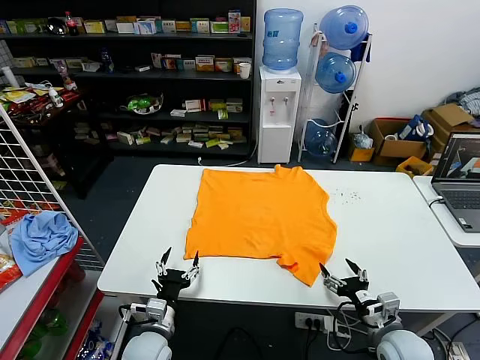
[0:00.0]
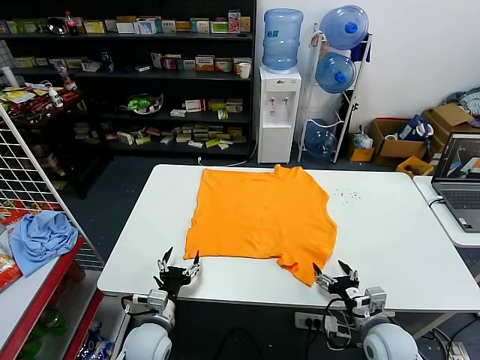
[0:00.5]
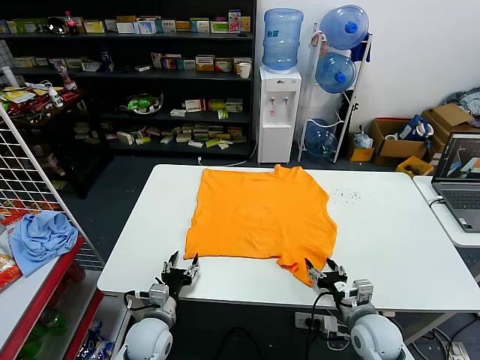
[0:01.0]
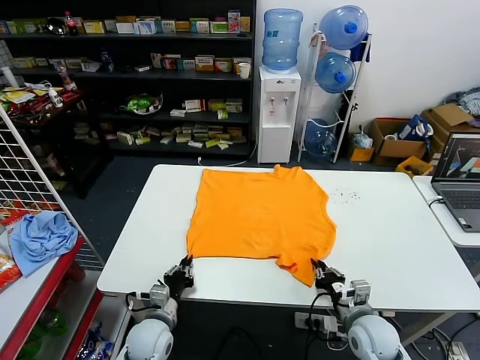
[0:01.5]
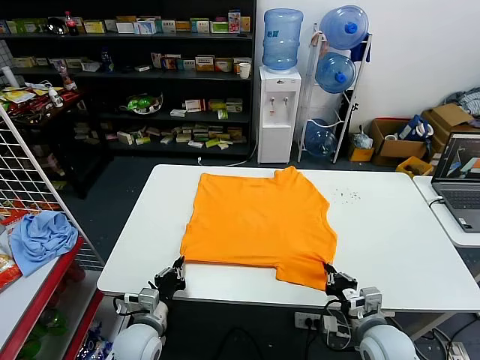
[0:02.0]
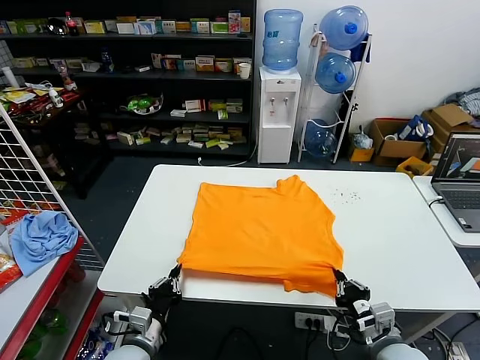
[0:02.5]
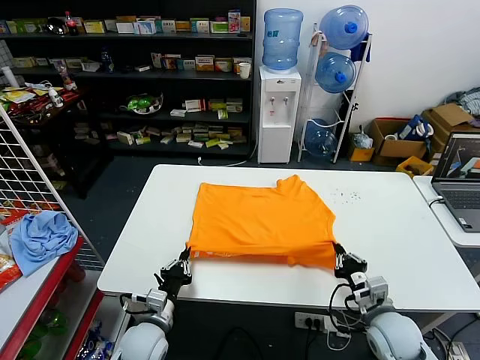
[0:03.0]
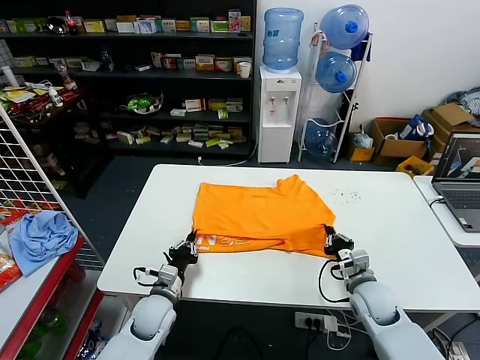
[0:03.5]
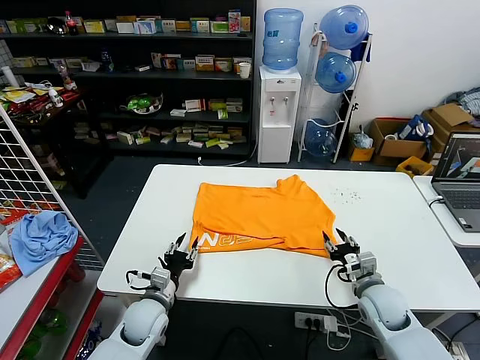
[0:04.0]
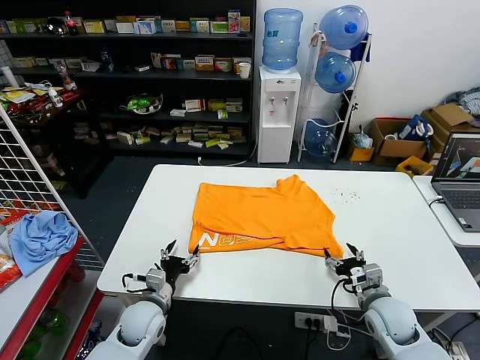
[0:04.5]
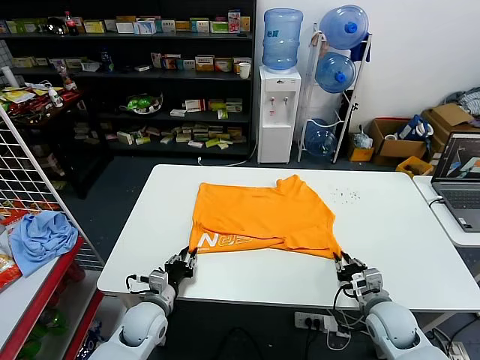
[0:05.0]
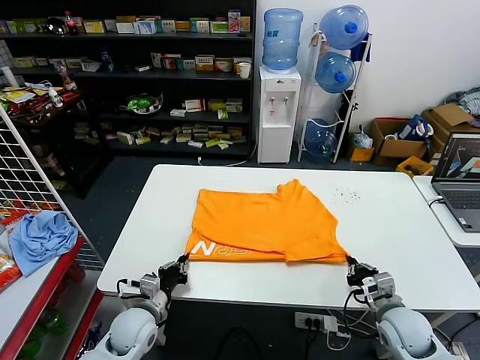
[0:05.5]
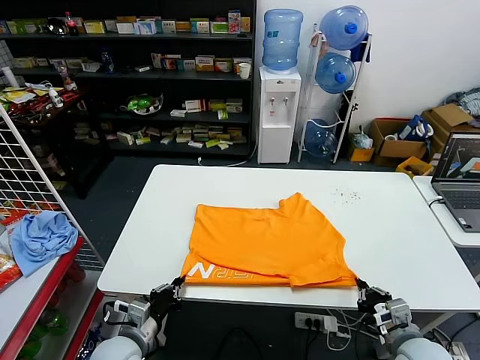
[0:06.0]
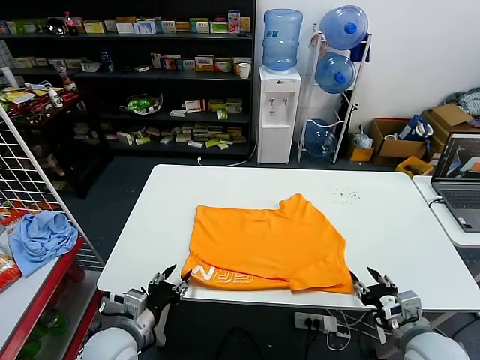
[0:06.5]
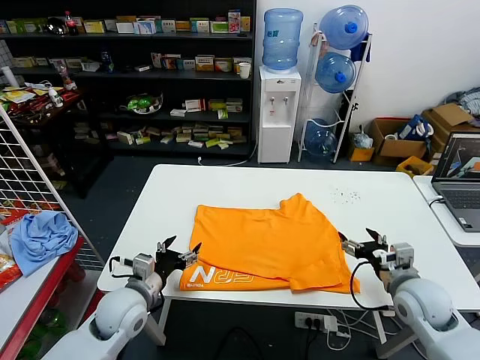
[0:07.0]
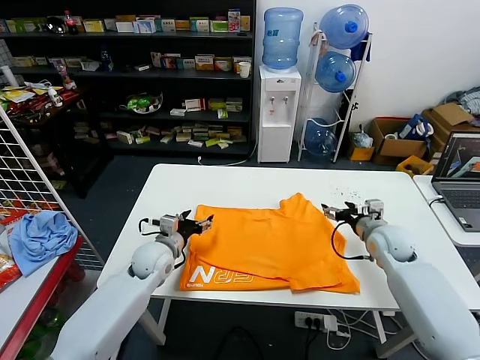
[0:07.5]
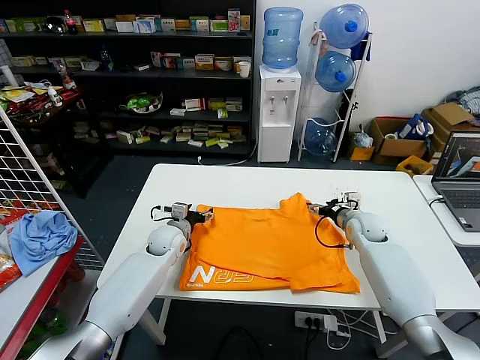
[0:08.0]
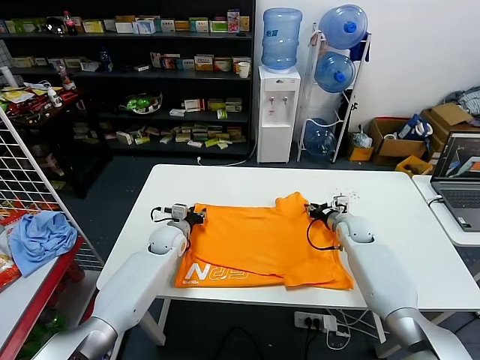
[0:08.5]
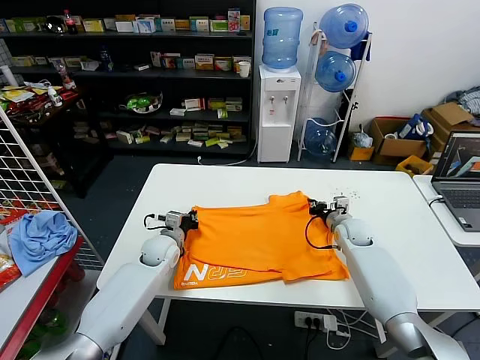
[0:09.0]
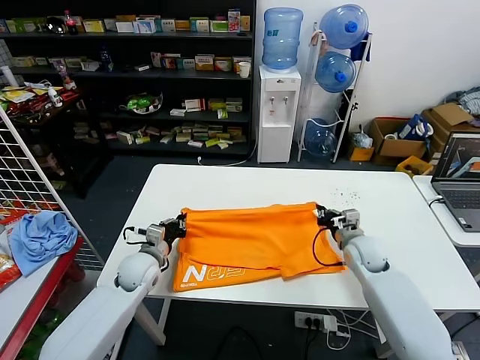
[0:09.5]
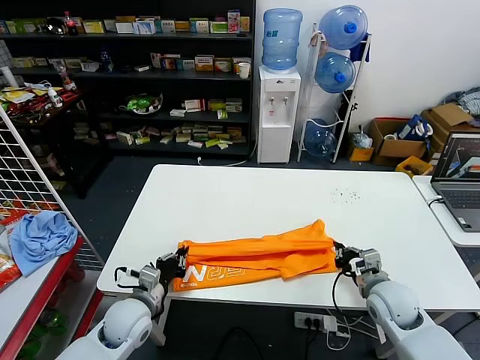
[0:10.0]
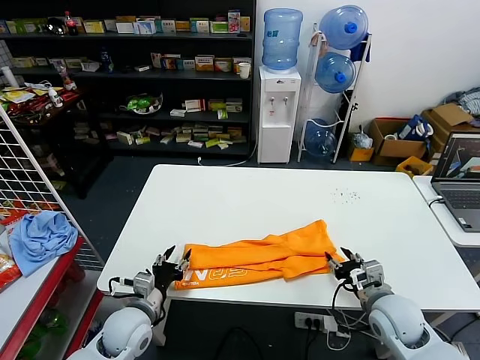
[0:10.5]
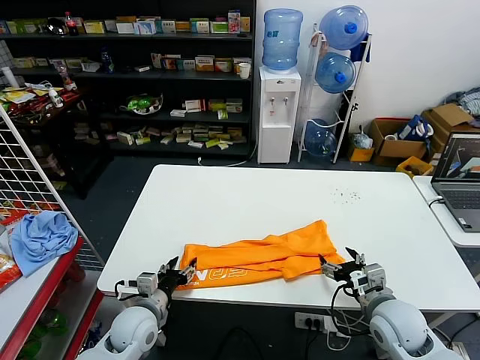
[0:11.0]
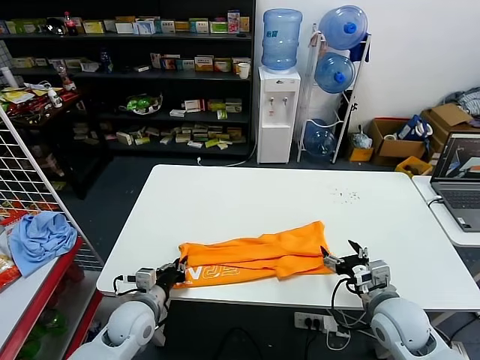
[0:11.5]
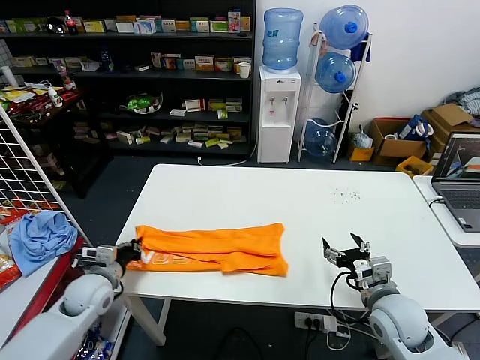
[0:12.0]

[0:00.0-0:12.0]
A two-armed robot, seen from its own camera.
Task of the whole recording: fold and organize the clothes.
Step, 0.0 to 1.5 s: use both grippers simultaneously to clamp the lower edge of the clothing fabric.
Step, 2.0 to 3.5 s: use both grippers to drag the lower edge of the fabric forward and fold it over the upper edge.
Step, 4.0 to 6.0 s: Drag the clothes downward with both gripper.
Step, 7.0 to 8.5 s: use both grippers simultaneously to clamp the upper edge of the clothing fabric.
Step, 9.0 to 10.0 s: use both grippers to drag the upper edge of the fabric backward and fold it over the lower edge.
Step, 10.5 to 11.5 s: use the left gripper to clamp the left edge of the fabric.
2.0 to 4.0 s: The left gripper travels forward by some 5 cm, and opens up. Meanwhile the right gripper heads forward, covering approximately 10 cm, and opens its fingers.
4.0 to 6.0 s: Both grippers travel together backward, about 10 cm. The left gripper closes up, while the right gripper closes its fingers.
6.0 to 8.0 s: The two grippers go some 30 cm forward. The right gripper opens its fingers. The left gripper opens.
8.0 to 10.0 s: The grippers both shift backward by some 20 cm. The left gripper closes its fingers. Meanwhile the right gripper closes its fingers.
10.0 to 12.0 s: The right gripper moves approximately 5 cm, and opens, while the left gripper shifts about 10 cm to the left, and opens, then closes again.

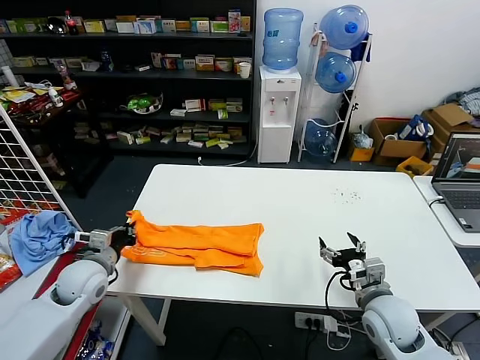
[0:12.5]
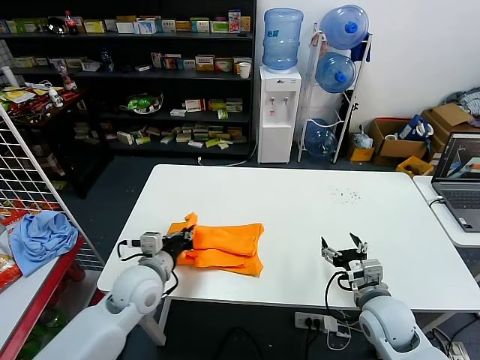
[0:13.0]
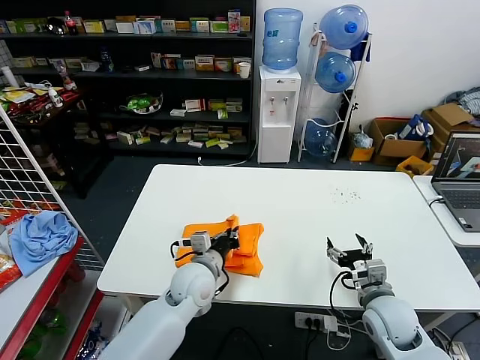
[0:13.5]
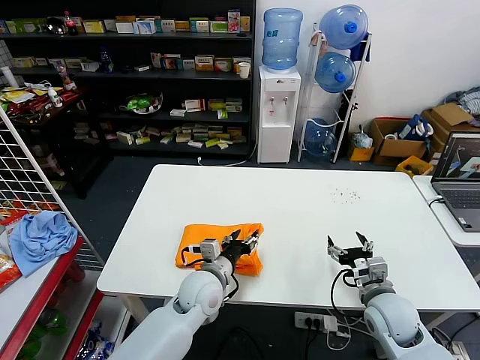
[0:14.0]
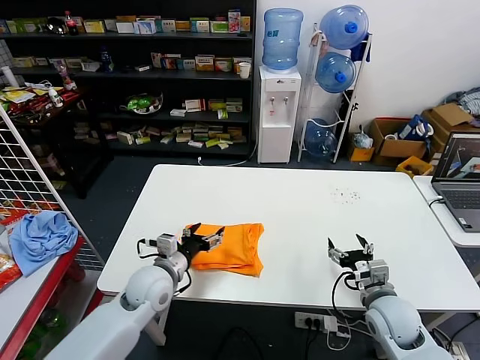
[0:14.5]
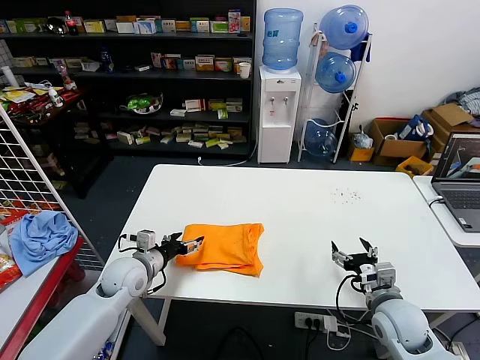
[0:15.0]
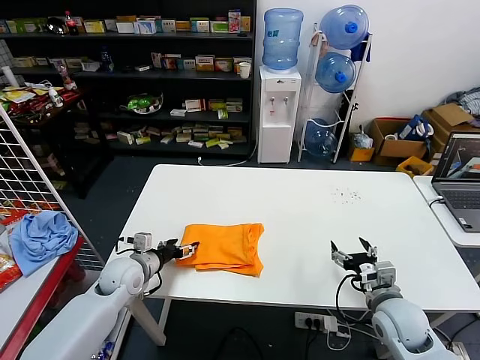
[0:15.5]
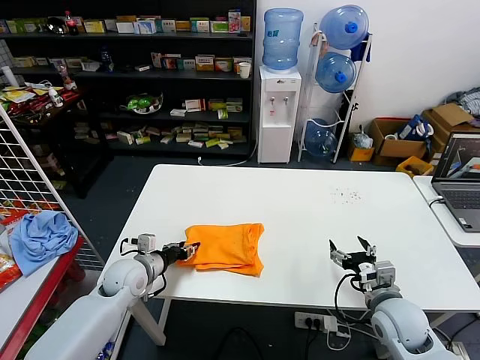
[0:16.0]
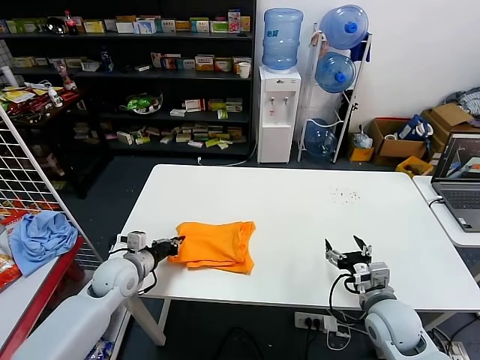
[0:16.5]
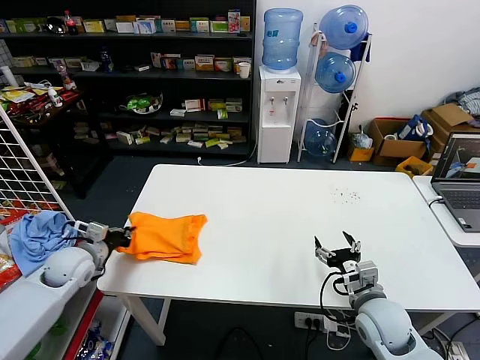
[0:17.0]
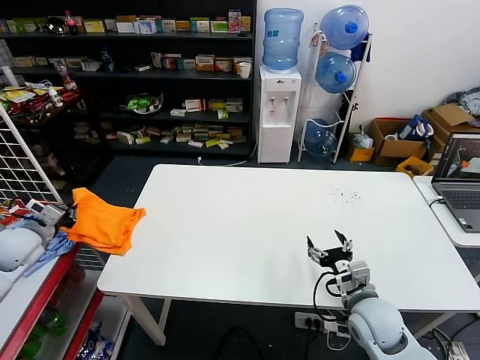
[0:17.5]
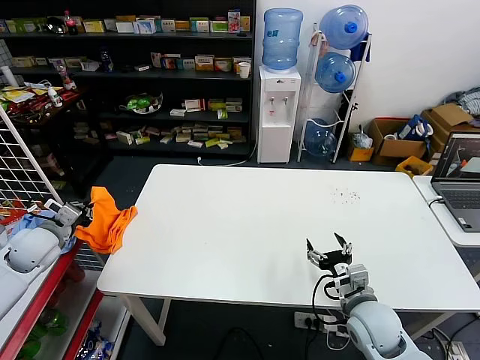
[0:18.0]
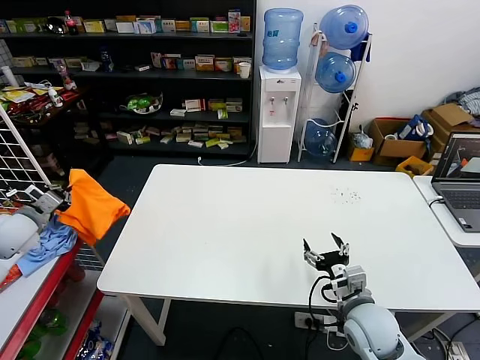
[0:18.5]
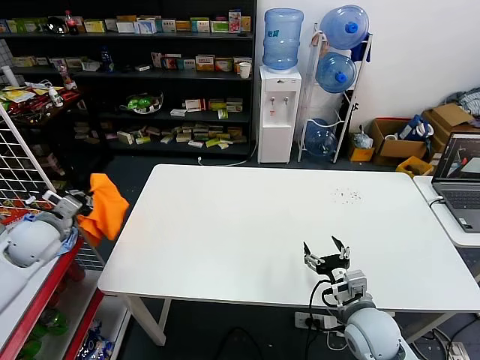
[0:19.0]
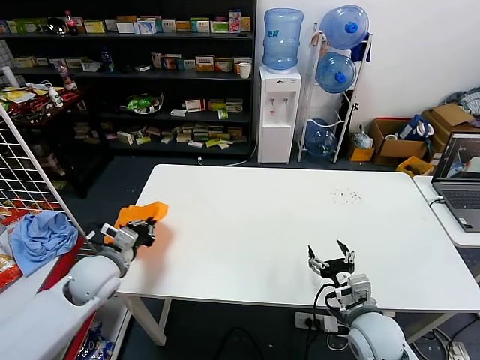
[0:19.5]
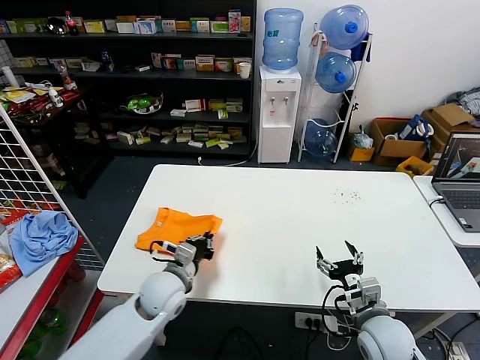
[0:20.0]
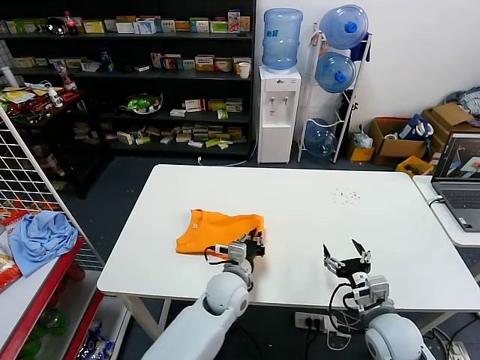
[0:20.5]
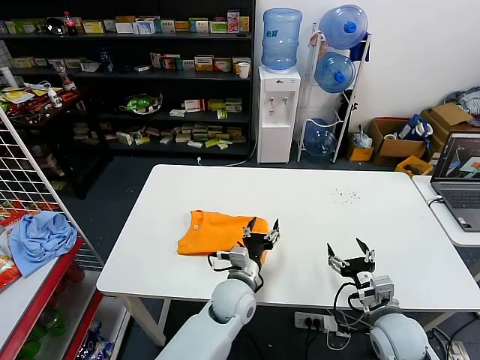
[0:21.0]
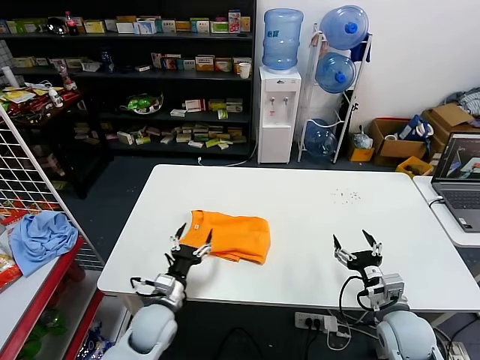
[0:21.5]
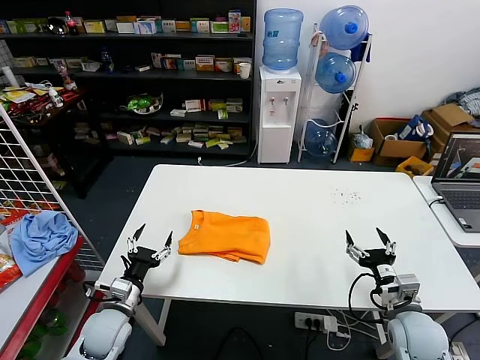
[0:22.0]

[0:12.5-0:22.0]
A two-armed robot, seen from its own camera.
Task of the whole recording: fold and organize the clothes.
Step, 12.5 to 13.5 s: use the left gripper to drag the left edge of the fabric to the left and folds it over the right edge.
Step, 14.0 to 20.5 s: Flip the folded clothes over with left gripper.
12.5 to 14.5 s: The left gripper heads to the right, covering approximately 15 cm, and opens up.
14.5 to 16.5 s: The left gripper is displaced to the left by roughly 10 cm, and closes its fingers.
16.5 to 18.0 s: The left gripper shifts some 20 cm to the left and upward.
18.0 to 20.0 s: The left gripper travels to the right by some 25 cm.
20.0 to 22.0 s: The right gripper heads to the right, covering some 5 cm; the left gripper is displaced to the left, downward and backward by roughly 15 cm, and opens its fingers.

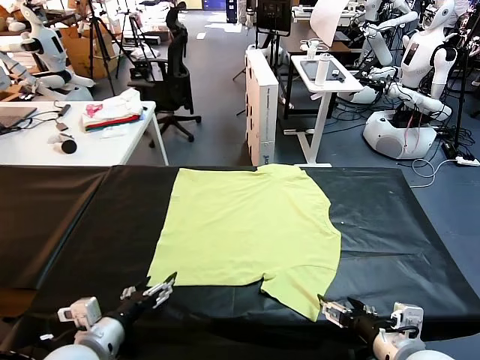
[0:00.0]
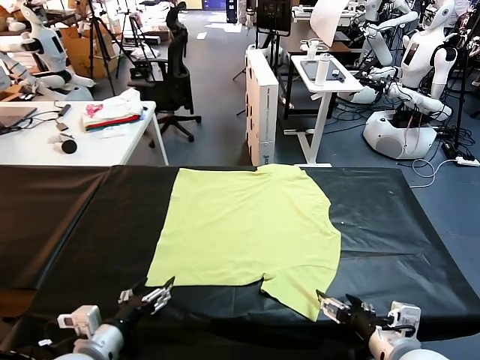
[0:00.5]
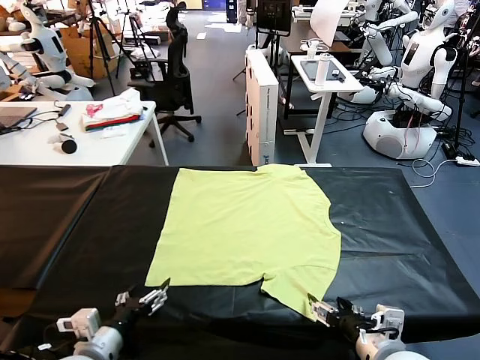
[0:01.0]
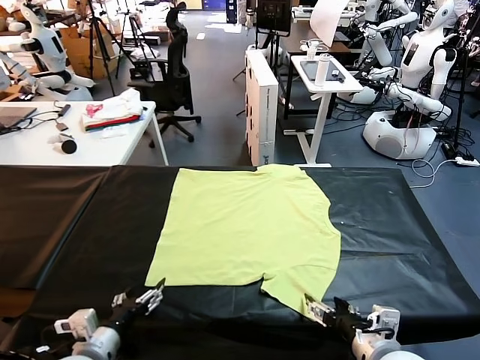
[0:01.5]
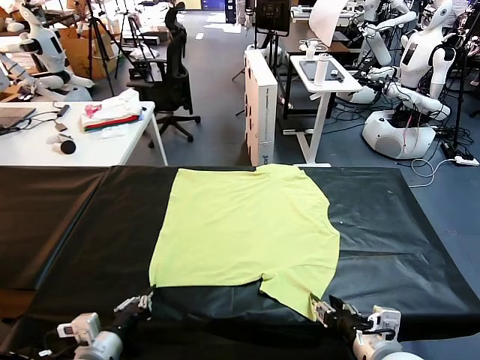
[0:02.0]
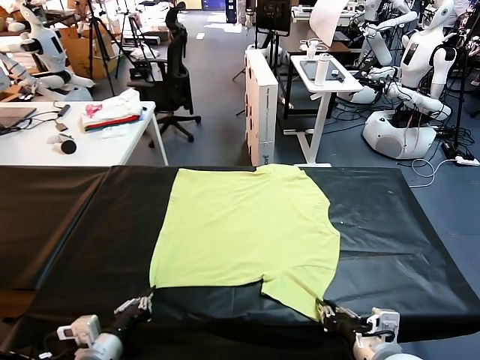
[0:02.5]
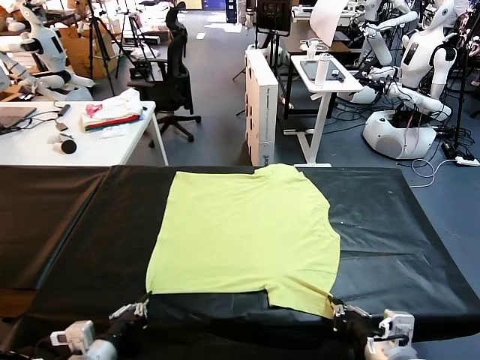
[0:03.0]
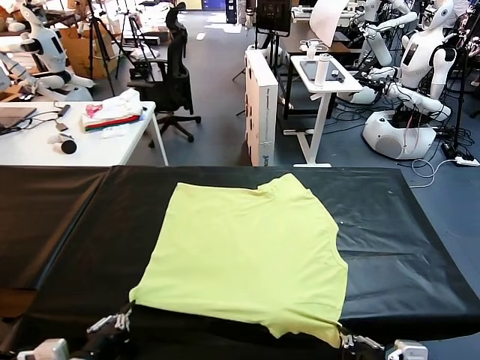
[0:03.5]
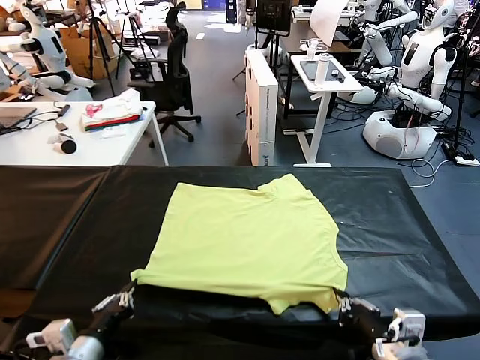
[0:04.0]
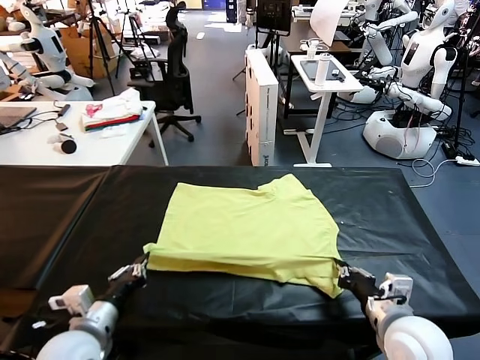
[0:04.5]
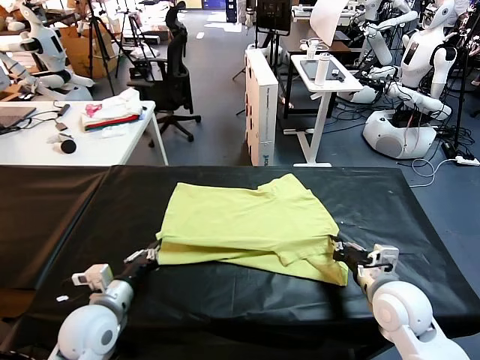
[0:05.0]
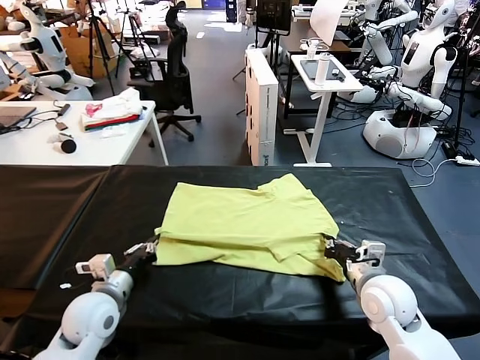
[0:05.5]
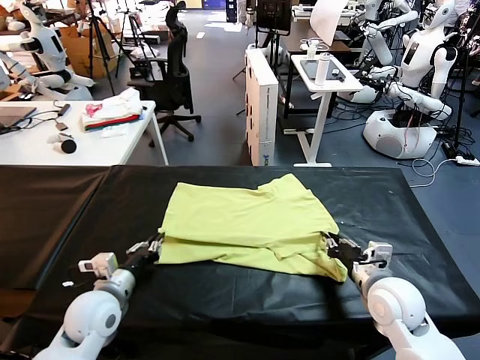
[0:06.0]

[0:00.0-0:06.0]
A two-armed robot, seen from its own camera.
Task of the whole recording: fold and organize the clothes.
Step, 0.0 to 2.5 s: use both grippers simultaneously to clamp the lower edge of the clothing fabric.
4.0 to 6.0 s: The right gripper is displaced forward by roughly 10 cm, and opens its fingers; the left gripper travels forward by approximately 10 cm, and opens its fingers.
